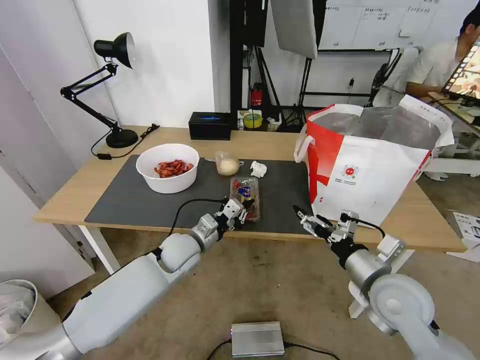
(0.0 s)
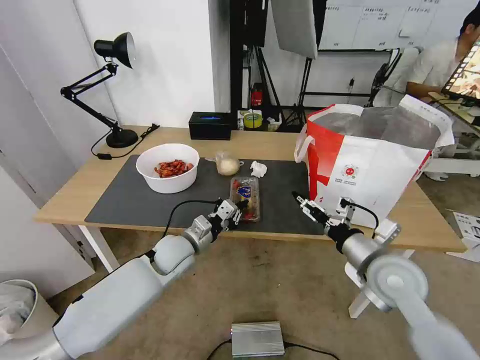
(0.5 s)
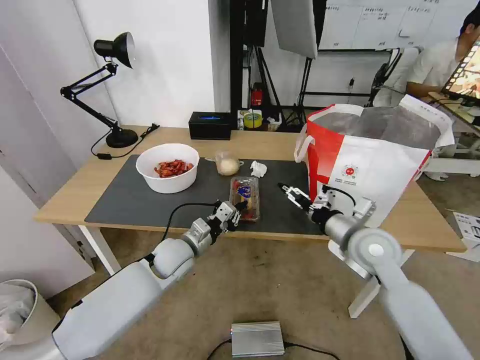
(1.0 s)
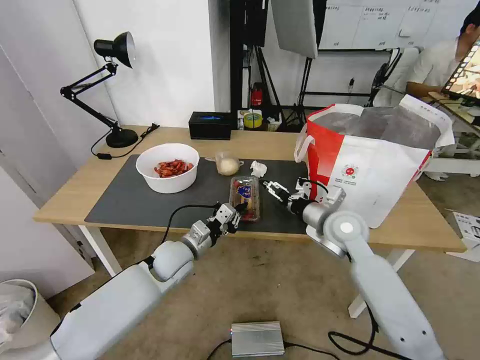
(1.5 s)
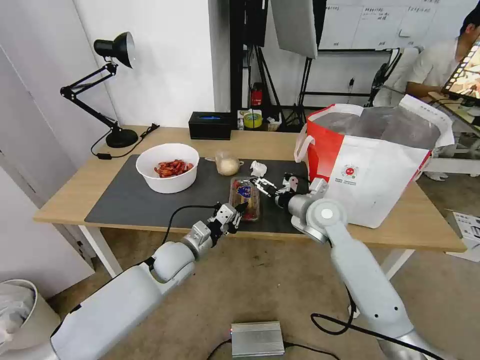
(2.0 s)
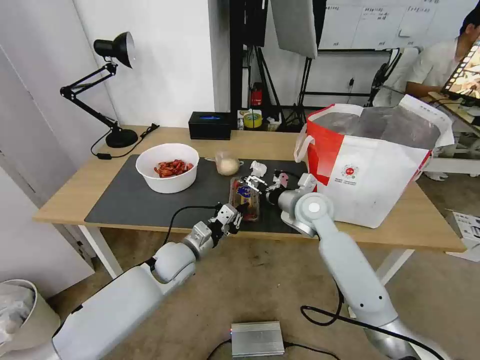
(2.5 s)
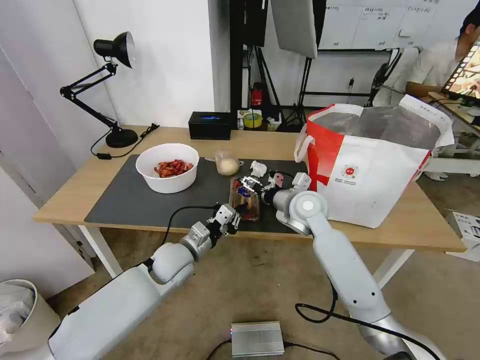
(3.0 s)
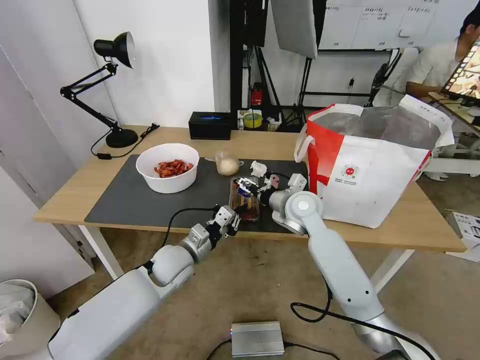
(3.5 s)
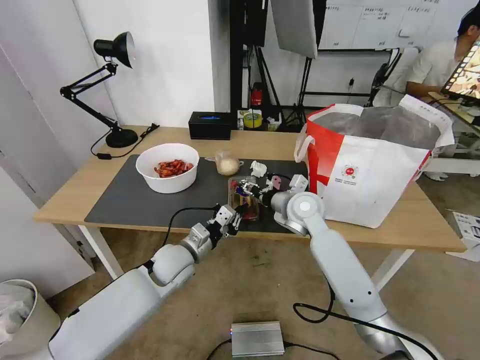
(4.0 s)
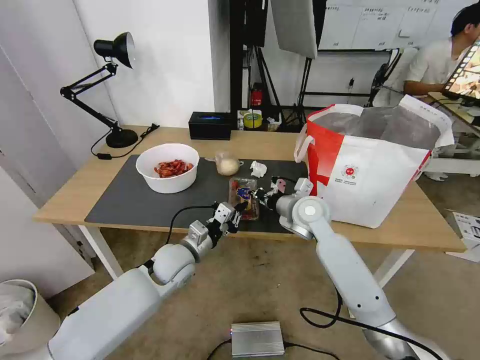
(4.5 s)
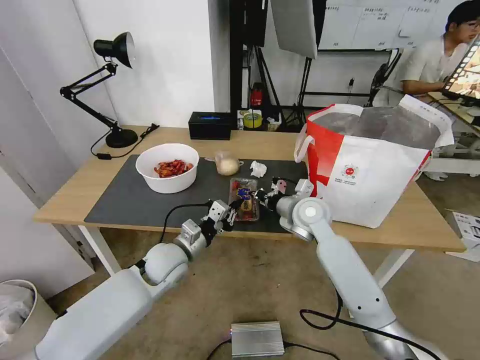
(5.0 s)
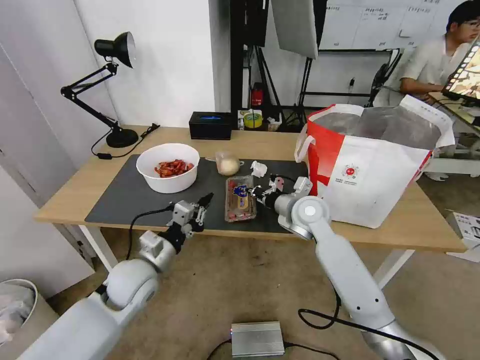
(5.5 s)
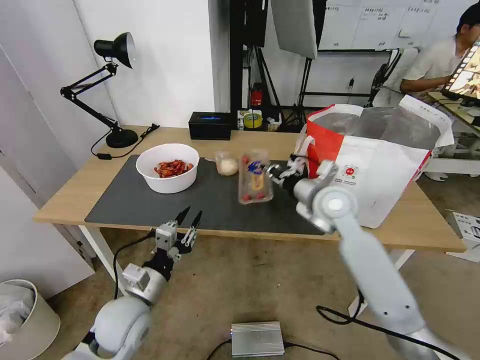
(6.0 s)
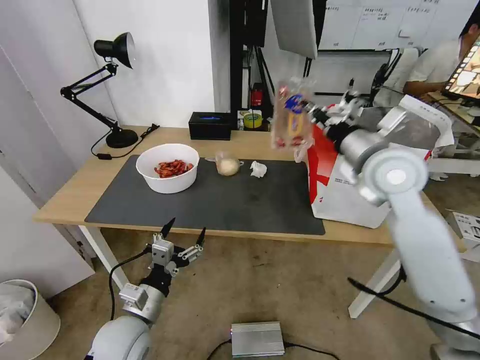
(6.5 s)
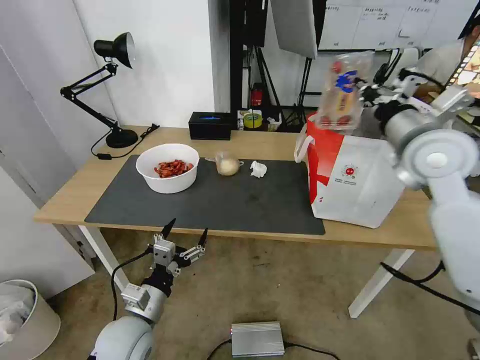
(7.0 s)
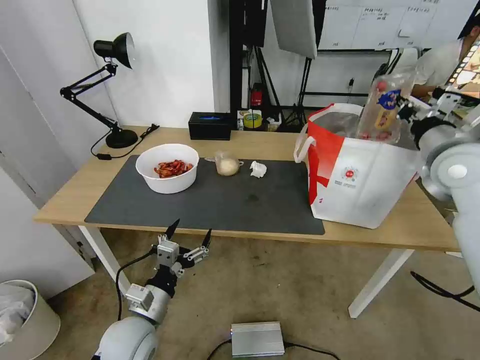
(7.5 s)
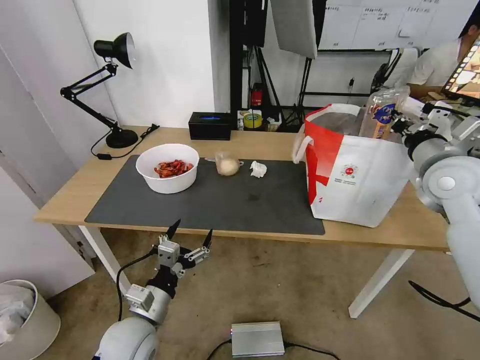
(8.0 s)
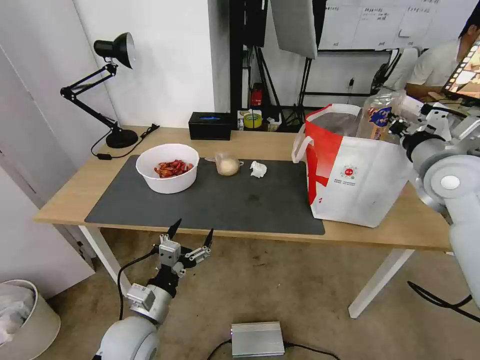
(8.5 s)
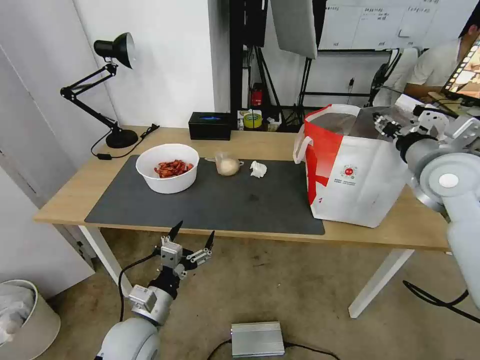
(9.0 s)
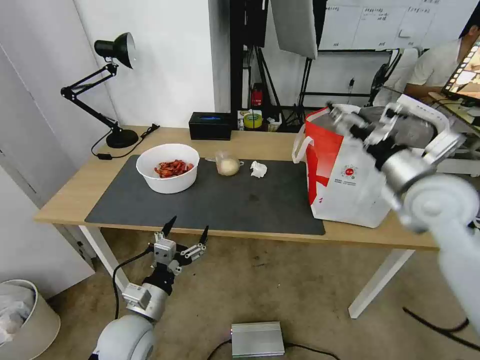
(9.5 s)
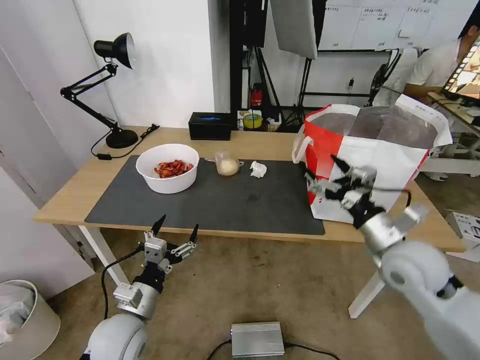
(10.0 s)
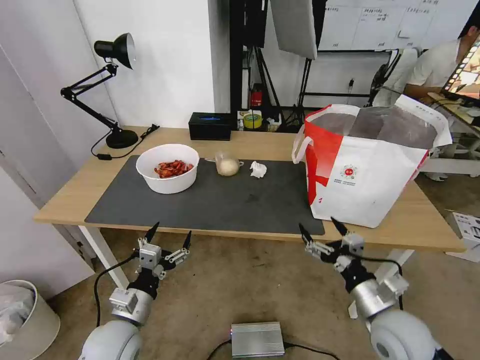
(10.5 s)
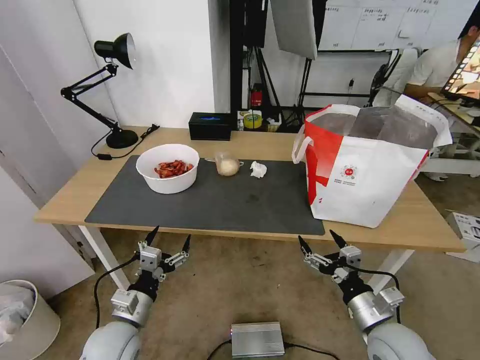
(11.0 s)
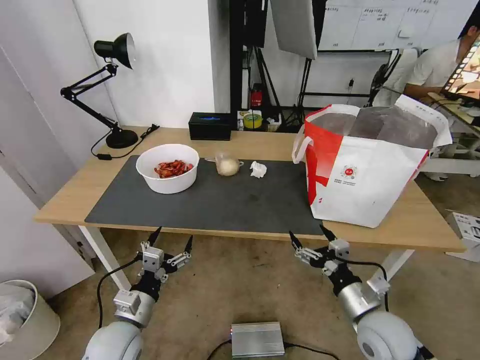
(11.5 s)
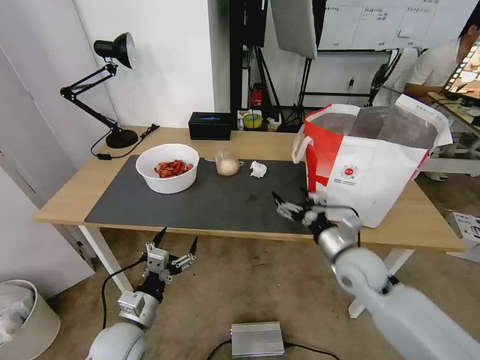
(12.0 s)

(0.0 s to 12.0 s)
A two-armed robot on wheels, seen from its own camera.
Task of the whole recording: Pick up the trash from the table and place it into the takeout bag.
0.0 s - 2.0 s: The right gripper heads forward and to the left, covering some 20 cm.
2.0 s - 4.0 s: The right gripper shifts by roughly 5 cm, and closes up.
4.0 s - 6.0 s: The right gripper moves upward, about 5 cm, and closes up, while the left gripper is displaced backward and to the left by about 15 cm, and opens.
6.0 s - 8.0 s: The right gripper moves to the right and upward, roughly 20 cm, while the left gripper opens.
8.0 s - 10.0 s: The right gripper heads downward, backward and to the left, covering some 20 cm, and opens up.
10.0 s - 12.0 s: The right gripper is displaced downward and to the left by some 10 cm, and goes backward and returns, some 10 cm each way.

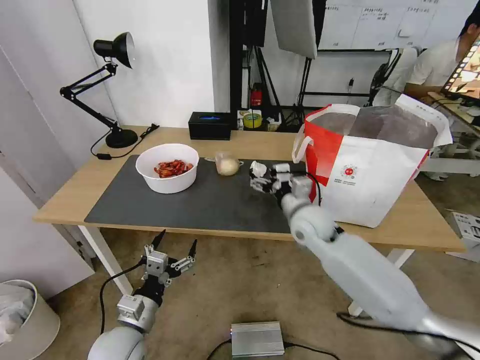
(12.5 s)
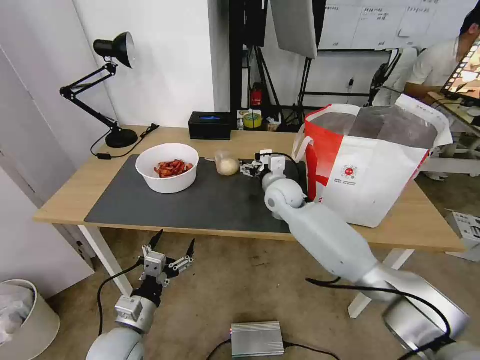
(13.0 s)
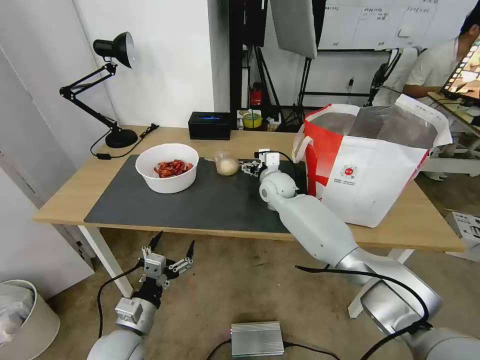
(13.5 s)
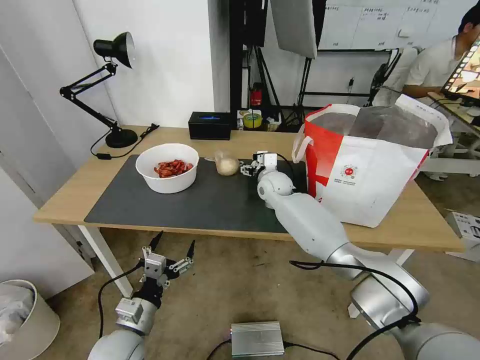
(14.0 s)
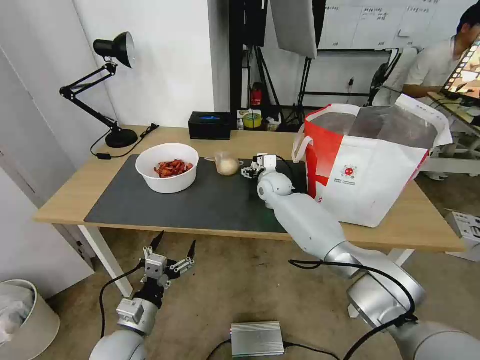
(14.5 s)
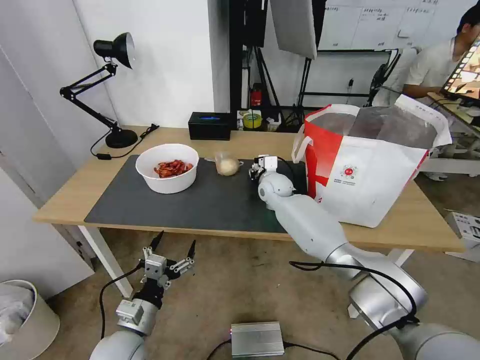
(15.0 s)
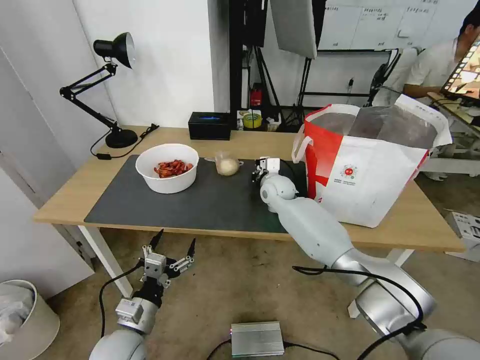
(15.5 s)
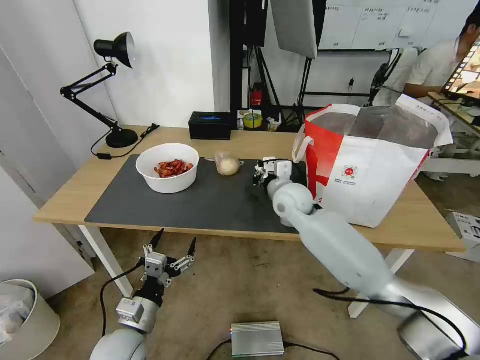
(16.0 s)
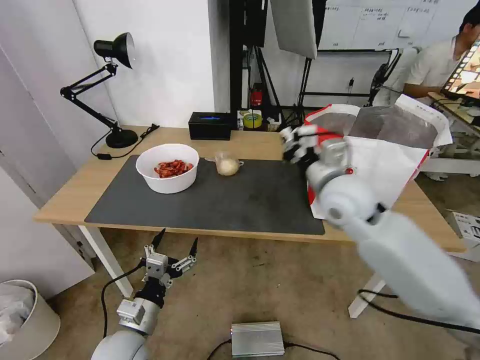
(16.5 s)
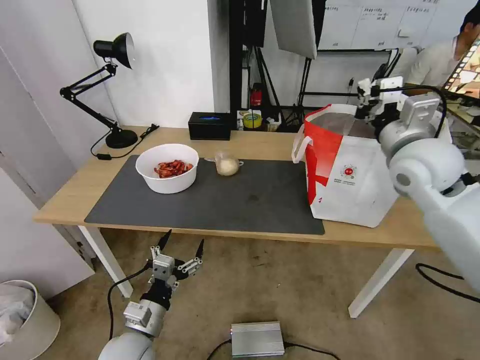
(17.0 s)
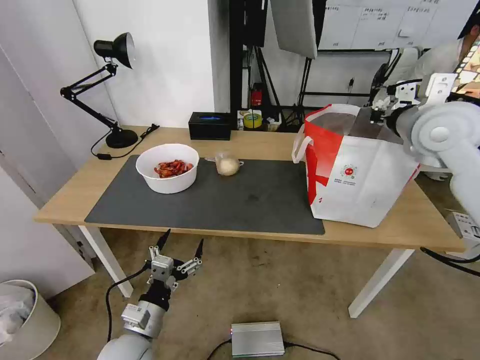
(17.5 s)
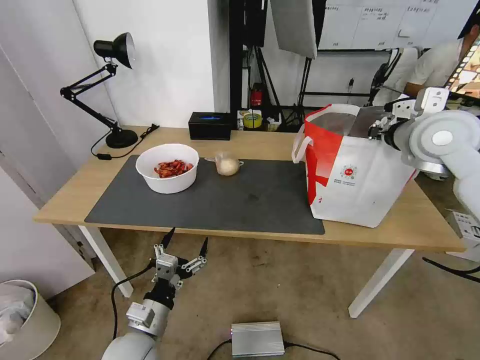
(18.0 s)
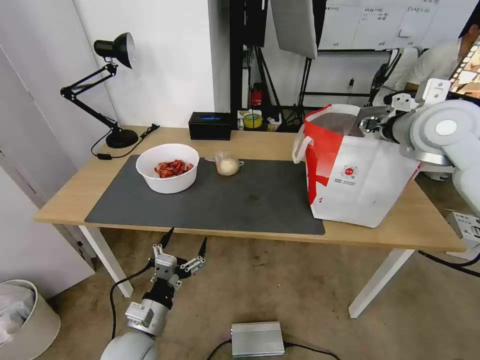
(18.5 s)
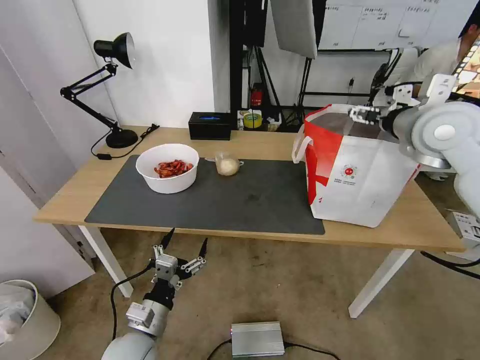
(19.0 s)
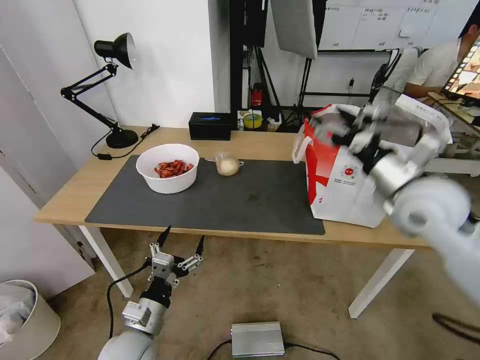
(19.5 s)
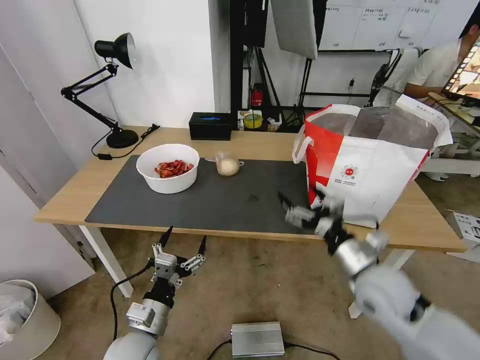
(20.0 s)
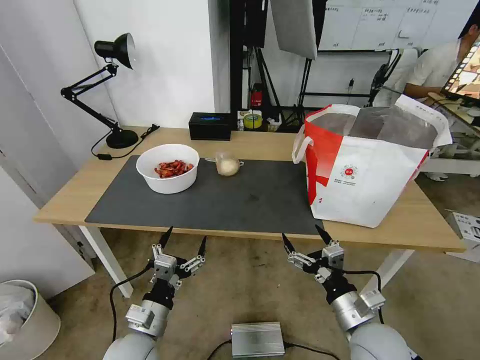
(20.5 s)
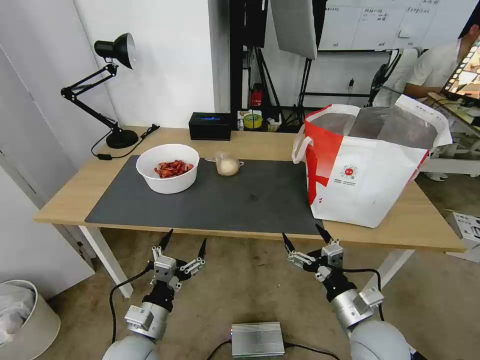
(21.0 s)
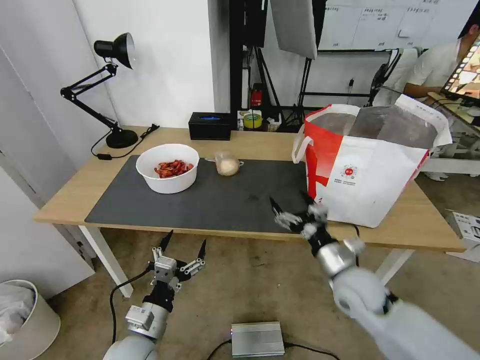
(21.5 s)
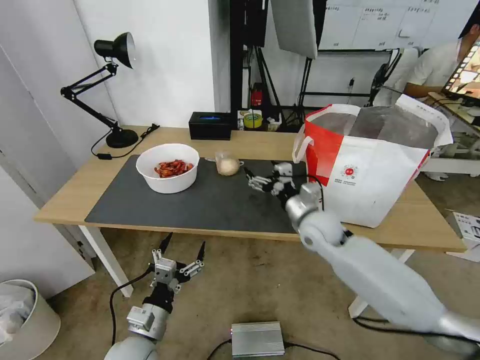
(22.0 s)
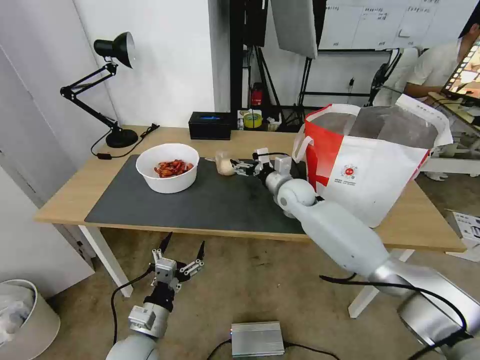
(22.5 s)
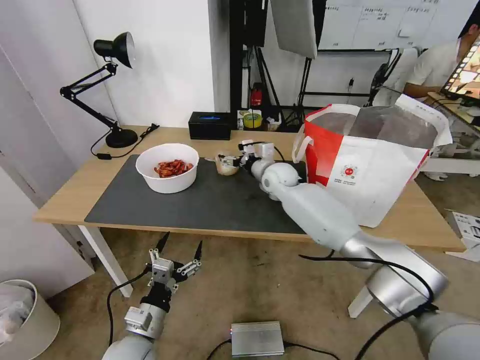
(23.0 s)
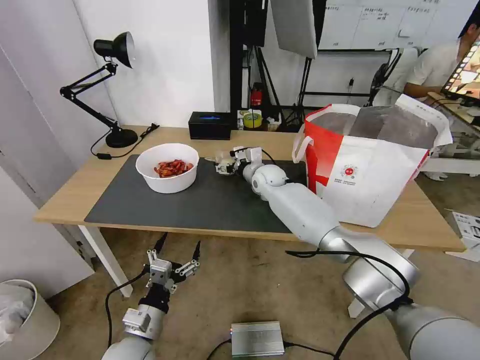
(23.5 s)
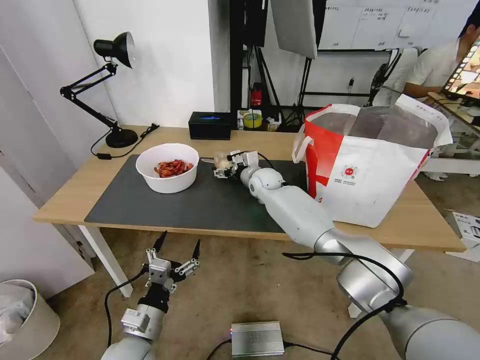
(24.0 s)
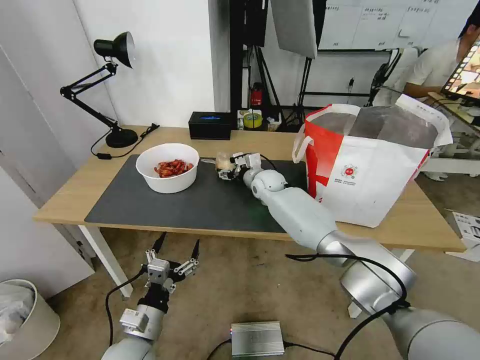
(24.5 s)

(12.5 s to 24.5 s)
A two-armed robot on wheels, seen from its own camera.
Task of the whole recording: Pick up the trash from the table and place it into the takeout bag.
12.5 s - 14.5 s: The right gripper moves forward, roughly 15 cm.
14.5 s - 16.5 s: The right gripper heads backward, upward and to the right, covering approximately 25 cm, and closes up.
16.5 s - 18.5 s: The right gripper moves to the right and upward, roughly 20 cm, and opens.
18.5 s - 20.5 s: The right gripper goes about 40 cm downward and backward, and opens up.
20.5 s - 22.5 s: The right gripper goes approximately 35 cm forward.
22.5 s - 24.5 s: The right gripper is displaced forward and to the left by roughly 10 cm.

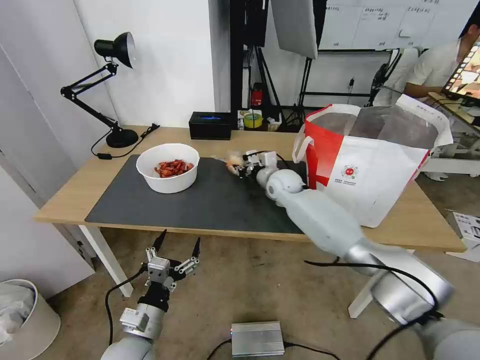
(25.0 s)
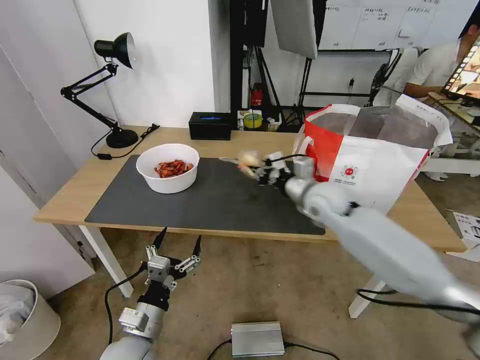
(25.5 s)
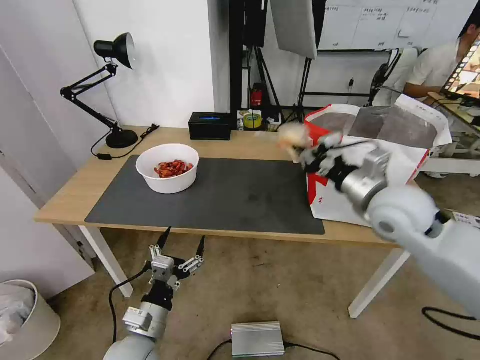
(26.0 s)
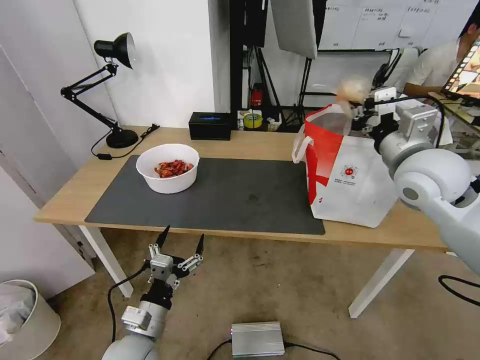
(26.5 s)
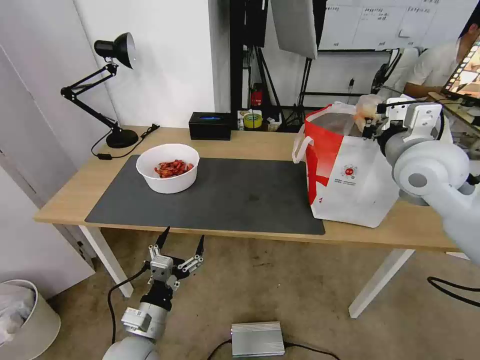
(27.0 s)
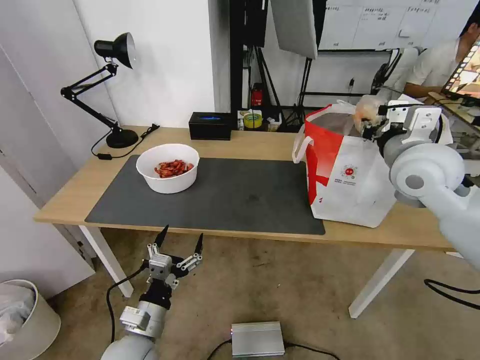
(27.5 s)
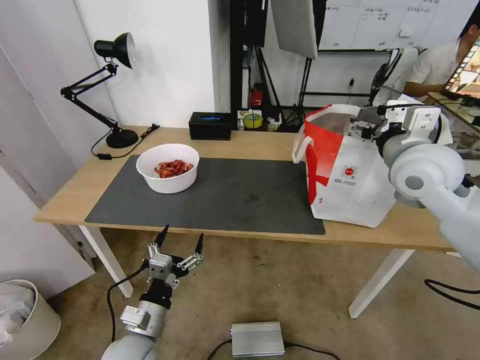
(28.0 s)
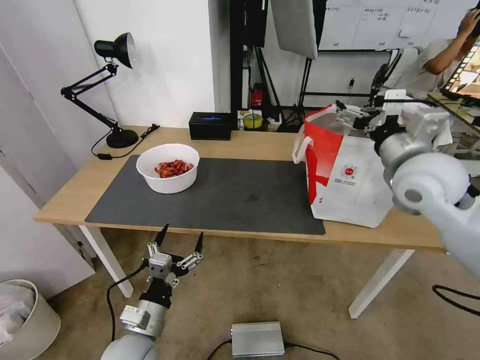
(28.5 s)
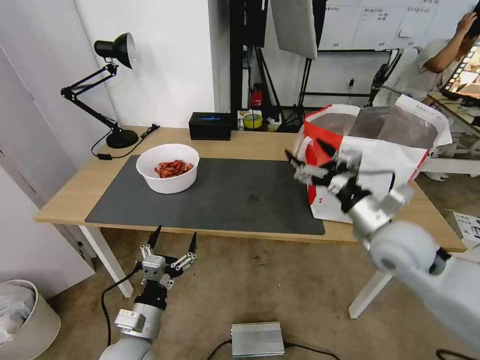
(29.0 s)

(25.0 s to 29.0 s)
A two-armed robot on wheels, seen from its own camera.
Task of the whole recording: Pick up the trash from the table and place it into the takeout bag.
25.0 s - 27.0 s: The right gripper shifts approximately 35 cm upward, backward and to the right.
27.0 s - 29.0 s: The right gripper heads downward and backward, covering about 15 cm, and opens up.
